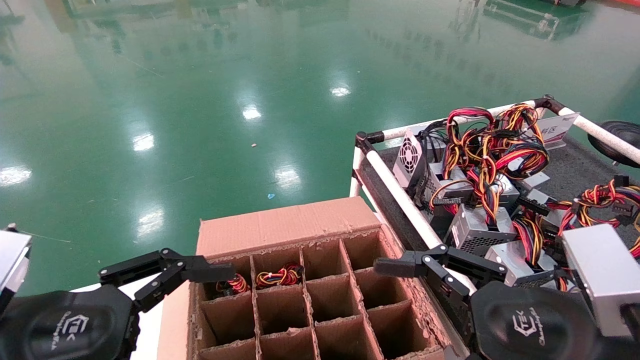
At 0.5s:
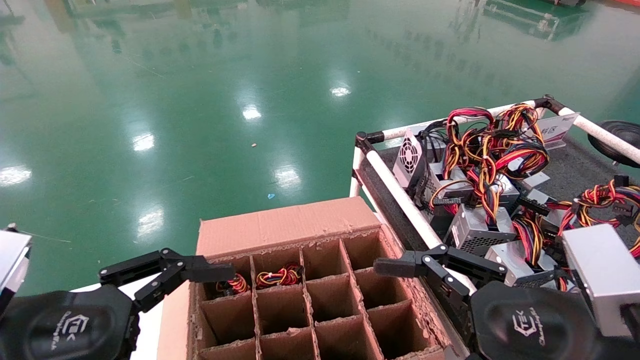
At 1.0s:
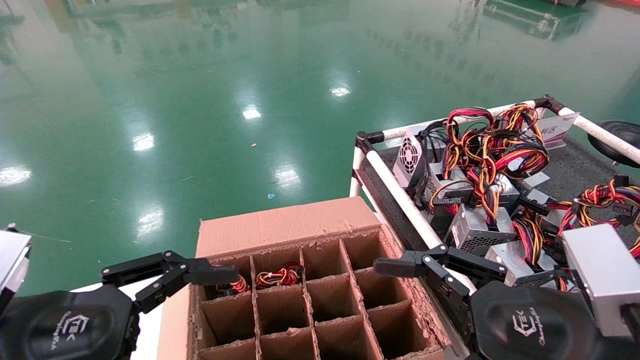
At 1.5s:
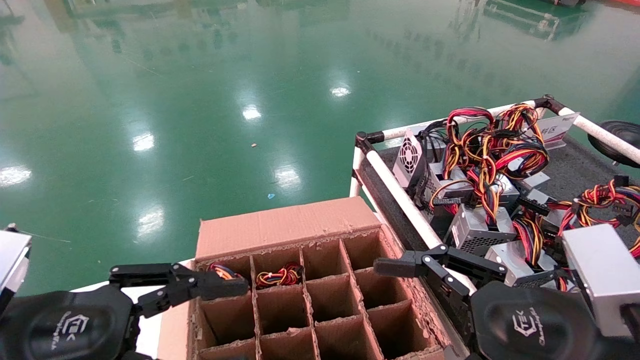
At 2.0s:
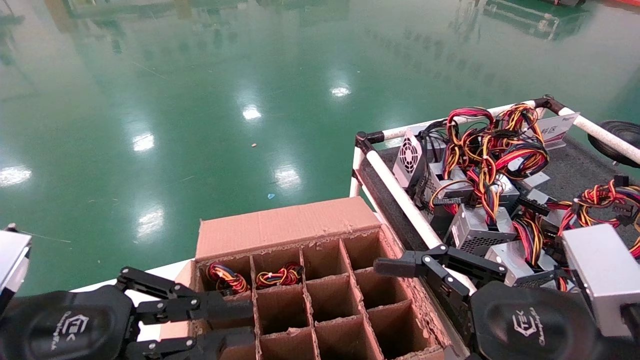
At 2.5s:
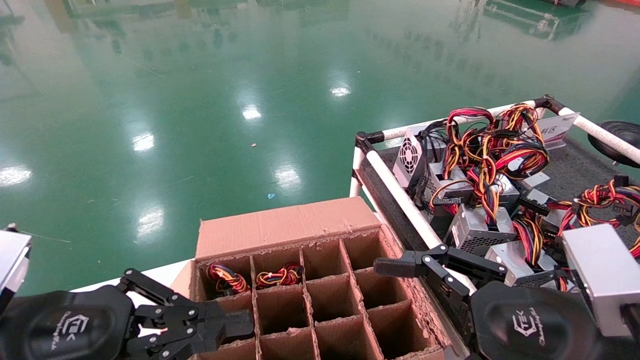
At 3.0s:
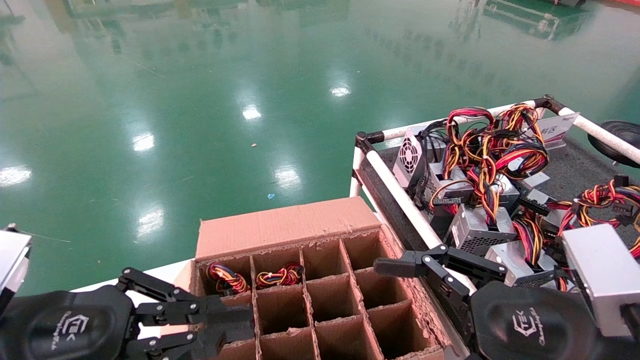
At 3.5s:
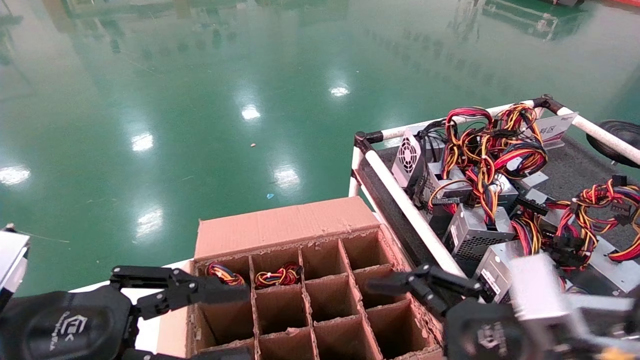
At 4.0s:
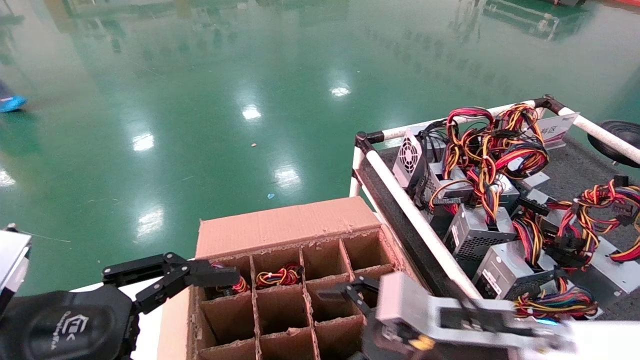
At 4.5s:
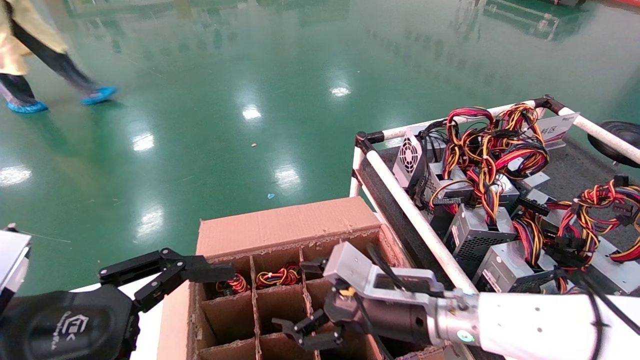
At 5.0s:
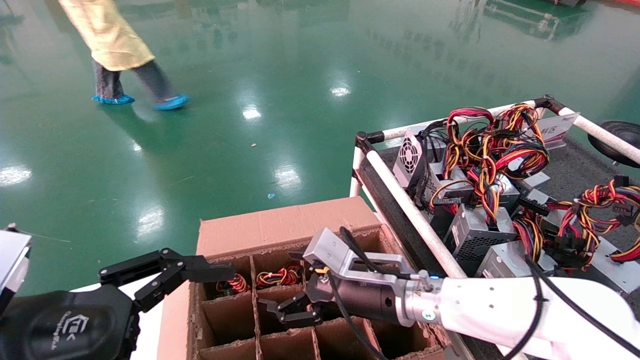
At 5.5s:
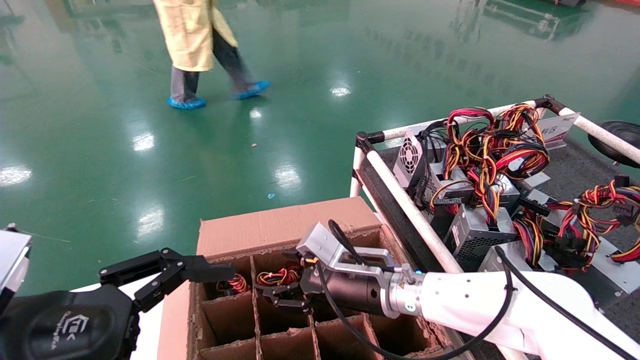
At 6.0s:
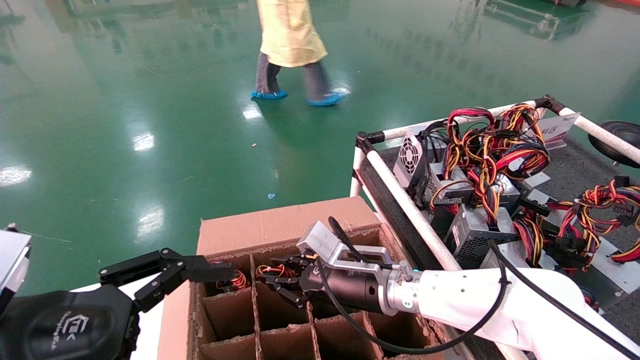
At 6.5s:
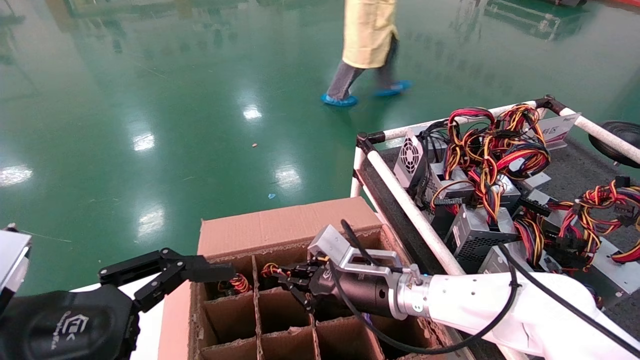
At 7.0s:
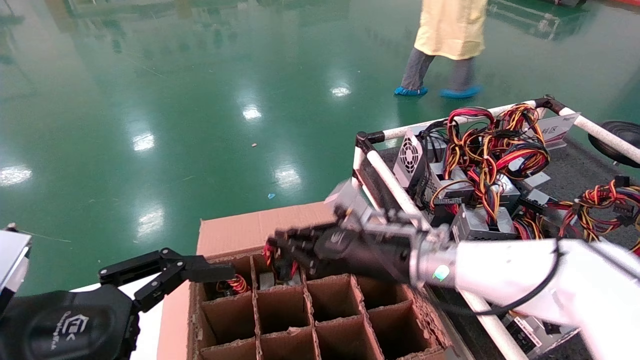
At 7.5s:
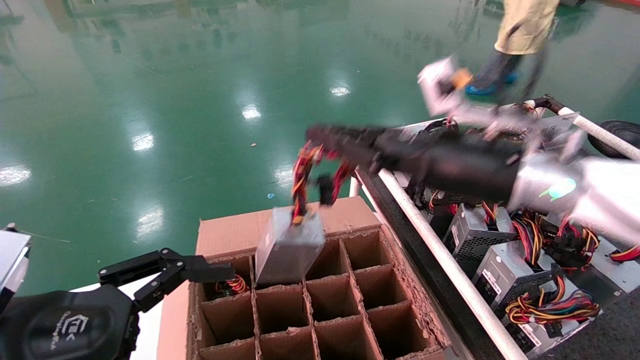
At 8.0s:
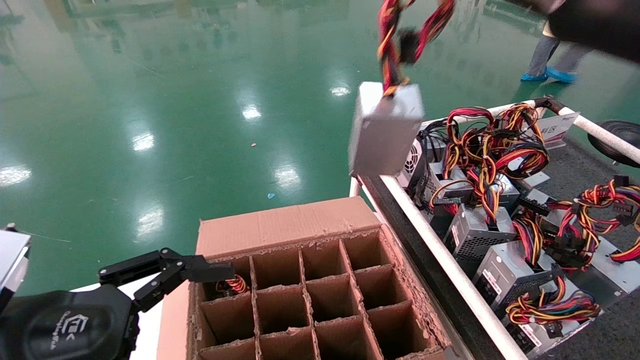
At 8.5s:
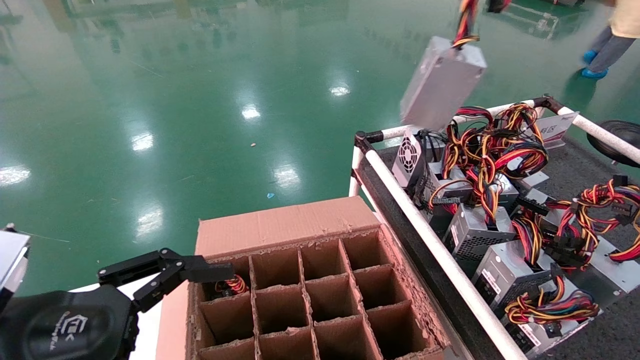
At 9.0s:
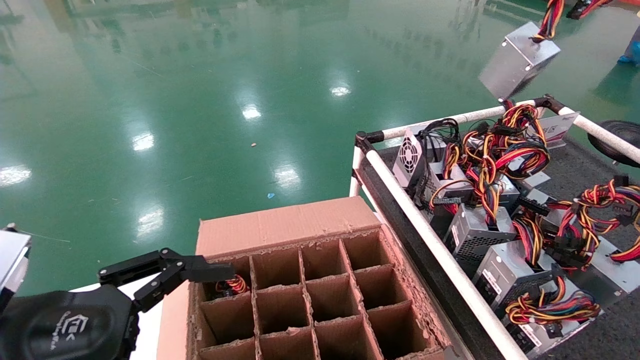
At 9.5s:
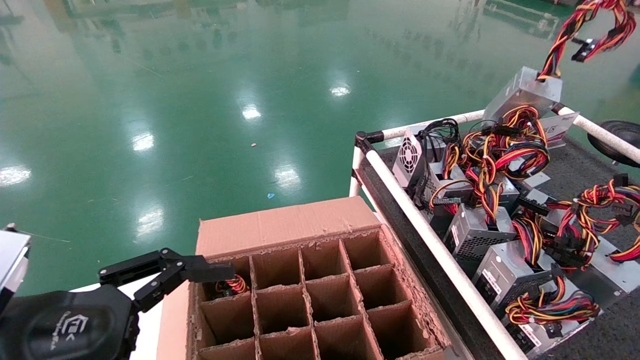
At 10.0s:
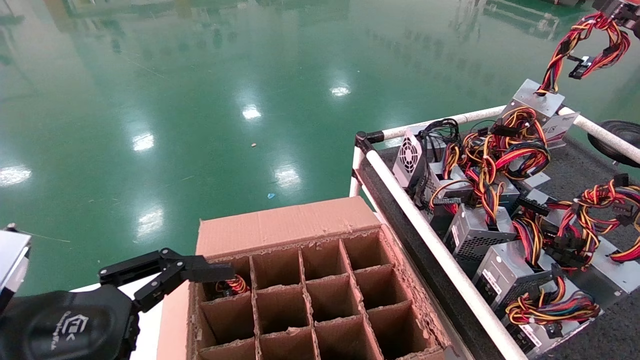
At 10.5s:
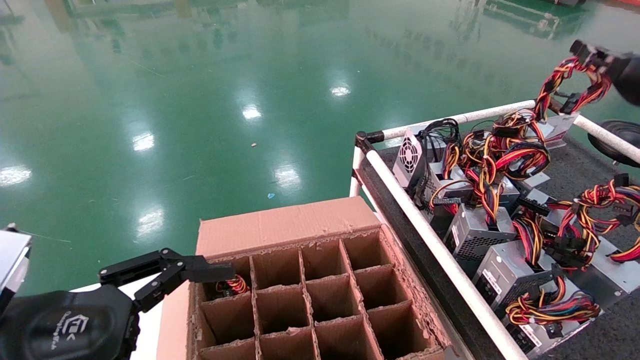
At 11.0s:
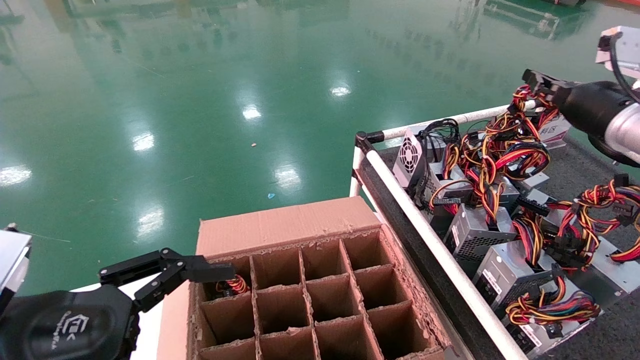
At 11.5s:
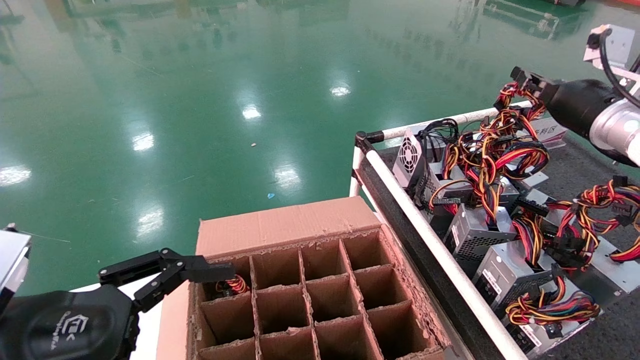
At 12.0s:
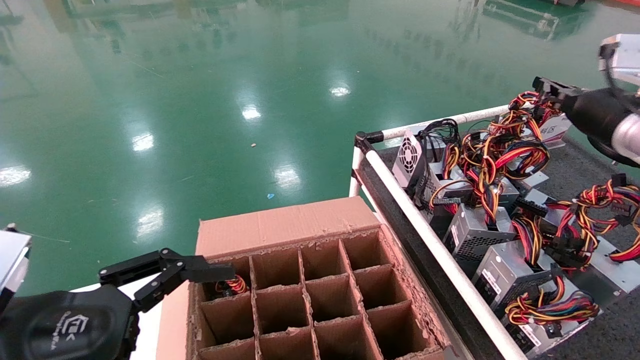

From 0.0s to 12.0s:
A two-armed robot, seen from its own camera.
Step, from 4.0s to 6.5s: Grab and lift the power supply from the large box.
From 0.0s to 2.0s: The left gripper closes.
From 2.0s to 4.0s: The right gripper heads forward, to the left and downward, covering approximately 15 cm, while the left gripper opens.
From 4.0s to 6.0s: The right gripper travels forward and to the left by approximately 15 cm, and closes.
From 6.0s to 8.0s: The right gripper shifts approximately 40 cm upward, to the right and backward, and closes its fingers.
From 8.0s to 10.0s: The right gripper travels to the right and forward by about 20 cm.
From 10.0s to 12.0s: The right gripper is displaced downward and forward by some 10 cm.

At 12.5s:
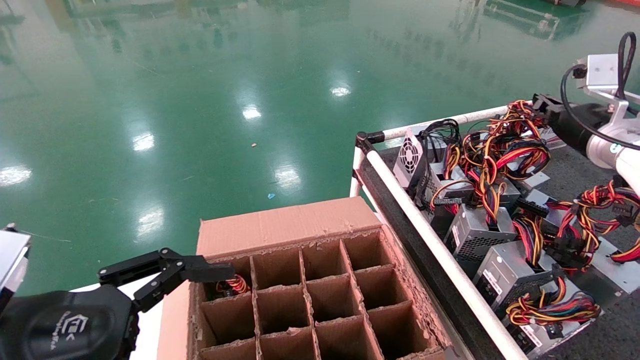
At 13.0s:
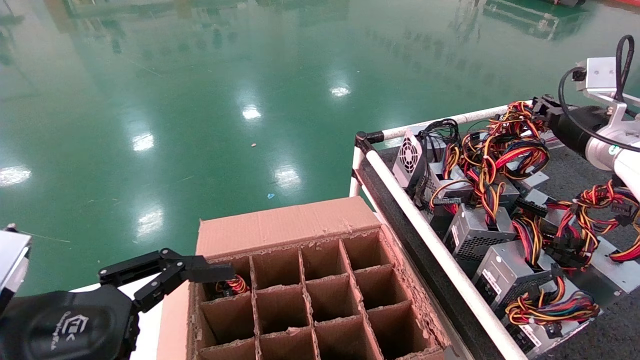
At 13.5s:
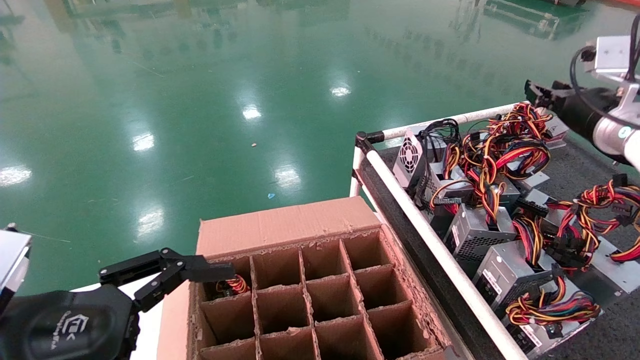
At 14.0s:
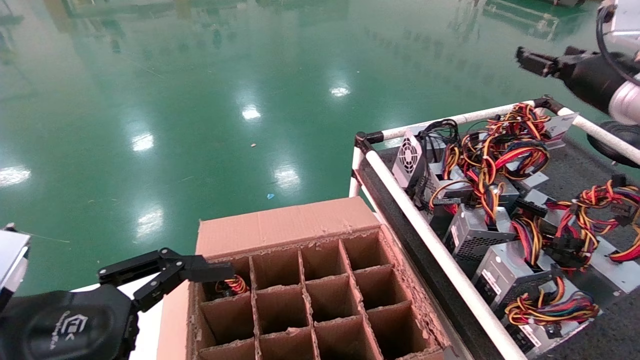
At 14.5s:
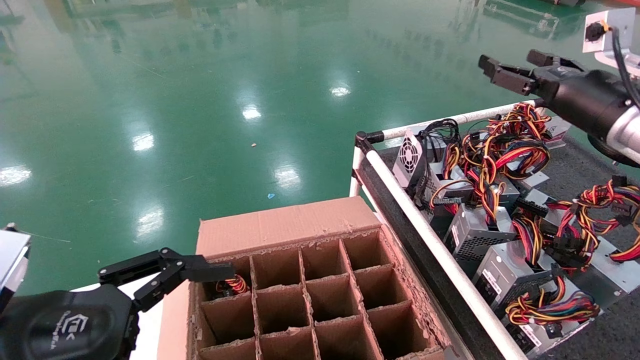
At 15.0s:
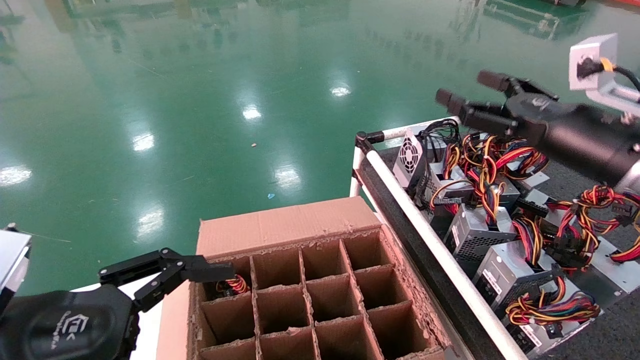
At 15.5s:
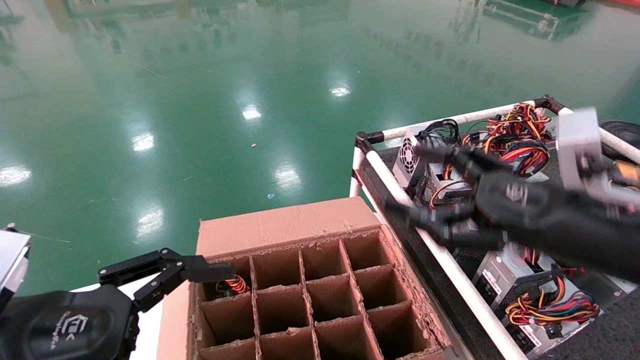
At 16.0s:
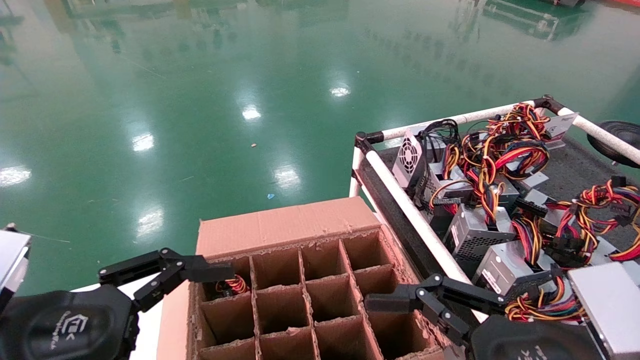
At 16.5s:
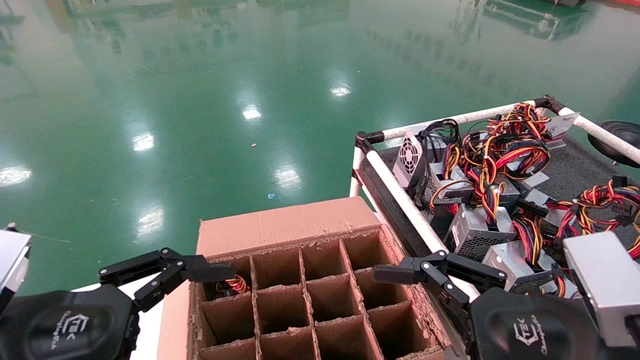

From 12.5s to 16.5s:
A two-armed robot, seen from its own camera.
From 12.5s to 14.5s: The right gripper goes some 5 cm backward, and opens.
From 14.5s to 16.5s: The right gripper moves backward, downward and to the left, about 30 cm.
